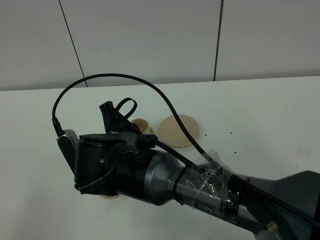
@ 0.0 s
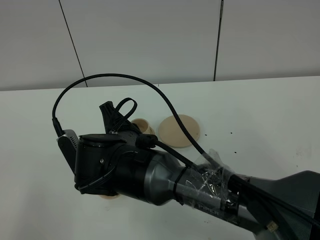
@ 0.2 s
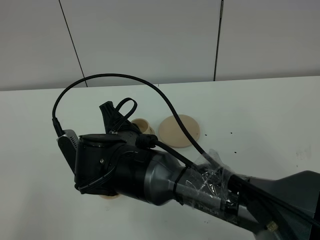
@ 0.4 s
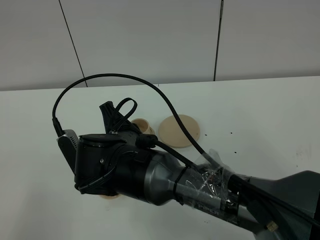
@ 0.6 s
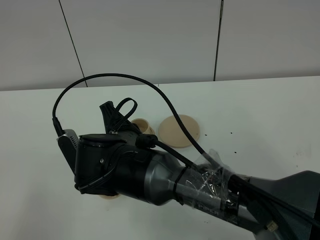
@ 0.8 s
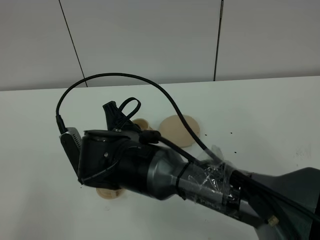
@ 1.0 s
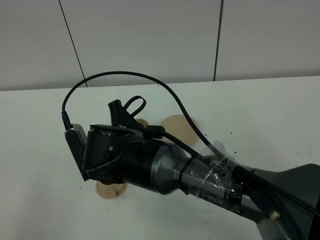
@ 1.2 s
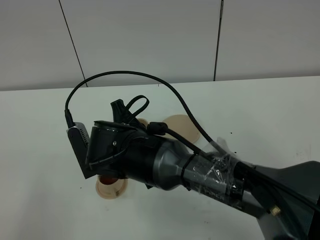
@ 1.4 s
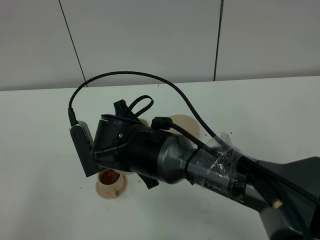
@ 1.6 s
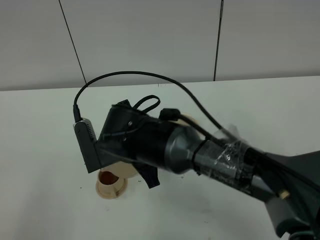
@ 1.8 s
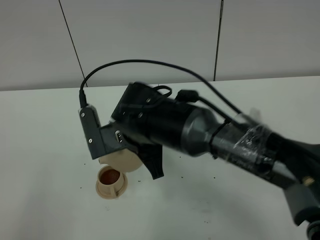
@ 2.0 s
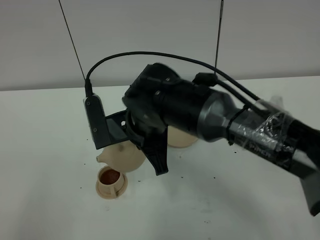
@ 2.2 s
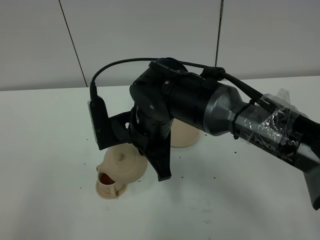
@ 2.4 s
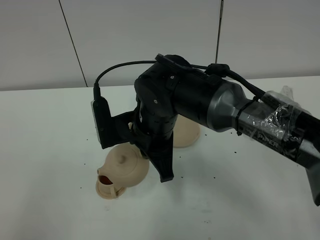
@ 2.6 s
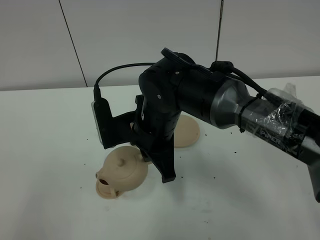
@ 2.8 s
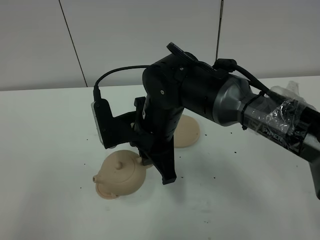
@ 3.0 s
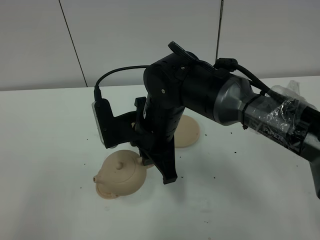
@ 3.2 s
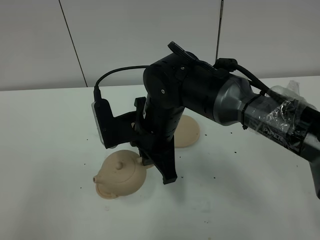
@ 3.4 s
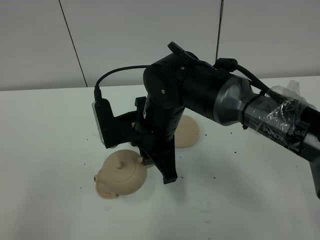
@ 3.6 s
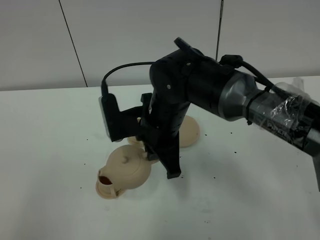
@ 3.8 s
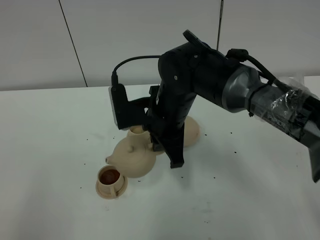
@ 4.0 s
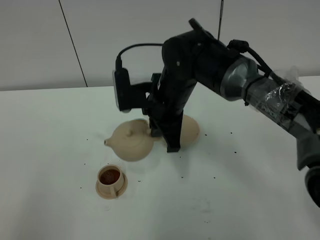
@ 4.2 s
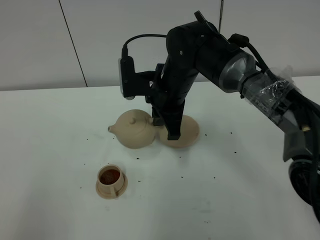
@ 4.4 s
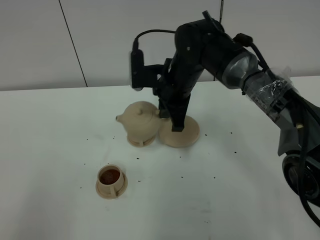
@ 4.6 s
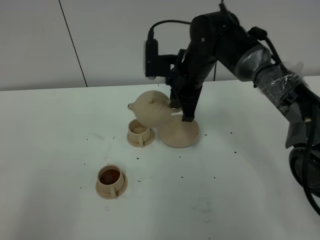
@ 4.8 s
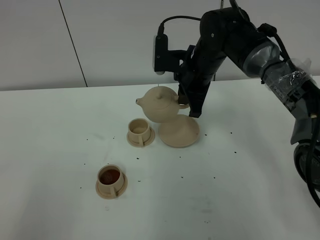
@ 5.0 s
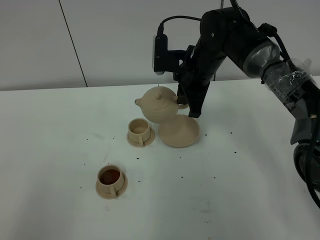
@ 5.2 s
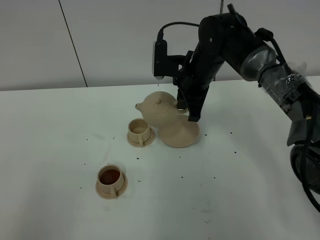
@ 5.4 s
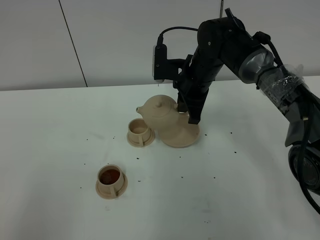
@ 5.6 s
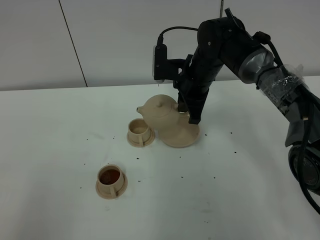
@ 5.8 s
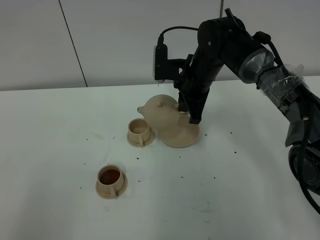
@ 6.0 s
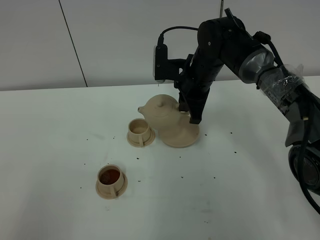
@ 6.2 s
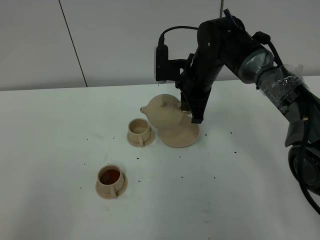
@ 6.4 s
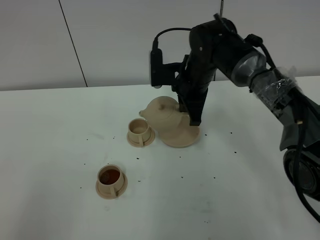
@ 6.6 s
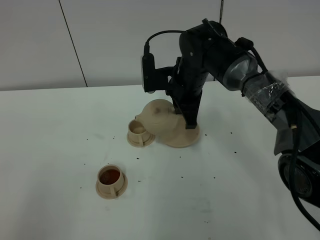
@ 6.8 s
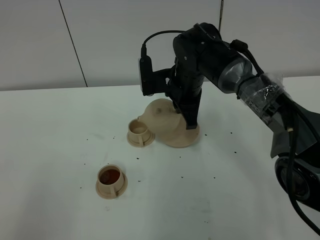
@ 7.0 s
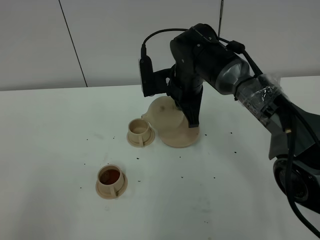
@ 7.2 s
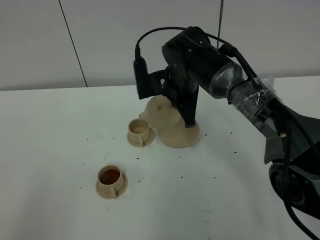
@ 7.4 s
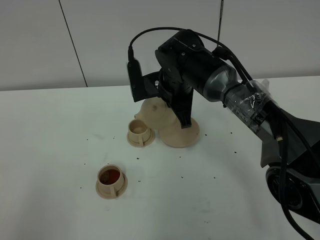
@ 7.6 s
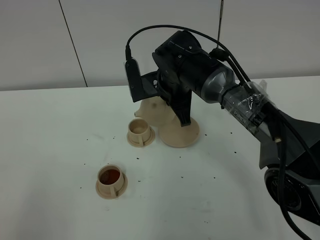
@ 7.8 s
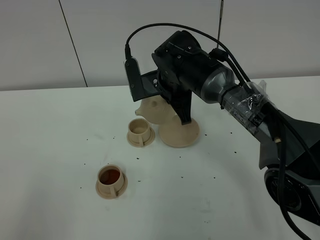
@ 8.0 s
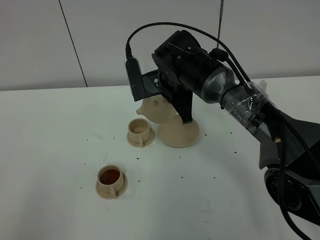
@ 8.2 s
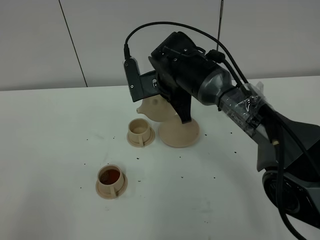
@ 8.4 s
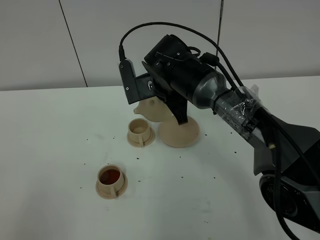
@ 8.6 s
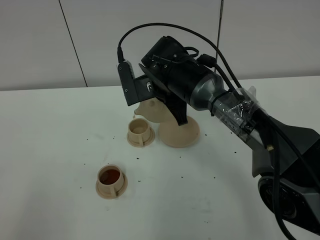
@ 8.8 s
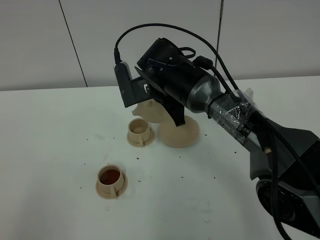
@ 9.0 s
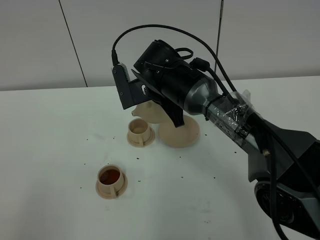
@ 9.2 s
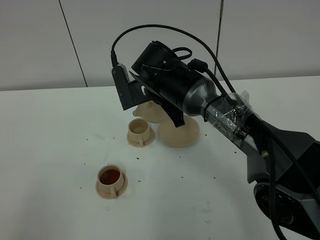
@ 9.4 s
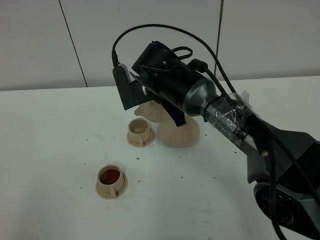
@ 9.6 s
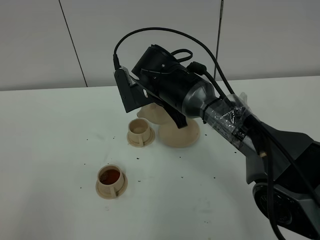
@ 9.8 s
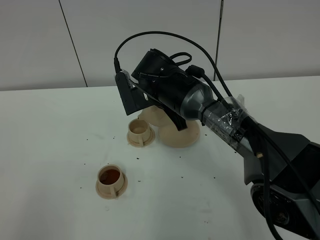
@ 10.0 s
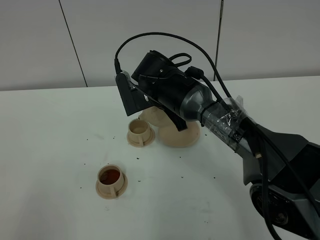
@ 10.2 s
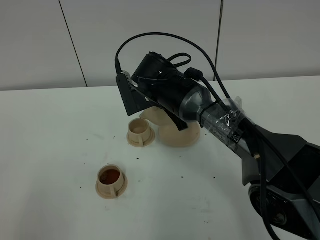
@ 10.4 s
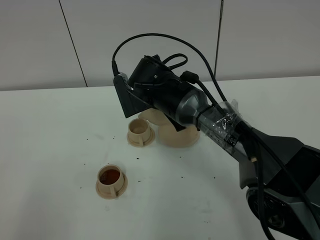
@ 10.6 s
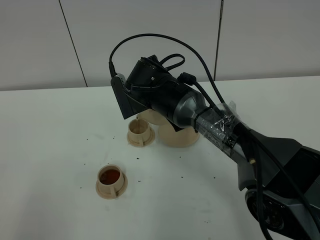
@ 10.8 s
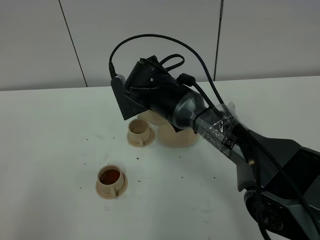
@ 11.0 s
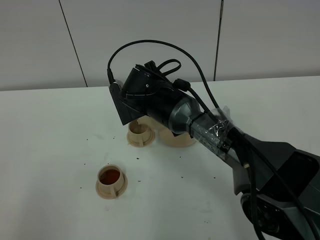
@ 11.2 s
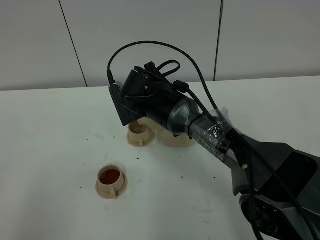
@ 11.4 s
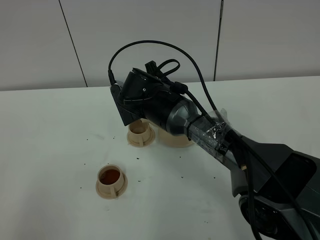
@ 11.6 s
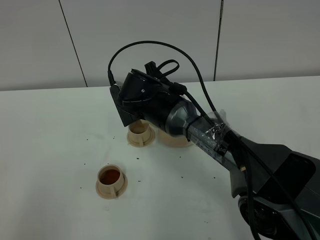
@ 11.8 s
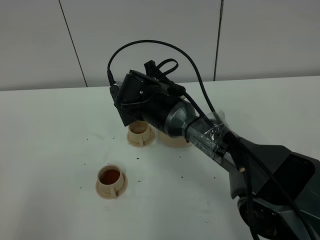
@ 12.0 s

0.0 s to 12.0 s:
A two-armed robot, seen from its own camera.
Task of the whole recording: grasp the brown teapot and pour the tea into the two brown teacups one by one, put the brown teapot back in its original place.
0.0 to 1.6 s: The grippers make only small movements.
1.6 to 3.0 s: The right gripper shifts by approximately 5 cm.
3.0 to 4.4 s: The right gripper shifts about 10 cm forward.
4.4 to 6.0 s: The right gripper shifts some 5 cm forward and to the right.
6.0 to 7.6 s: The right gripper changes place by some 5 cm.
7.6 to 10.4 s: The grippers make only small movements.
10.4 to 12.0 s: There are only small adjustments of the grippers.

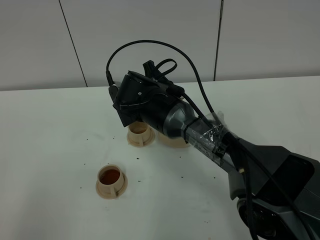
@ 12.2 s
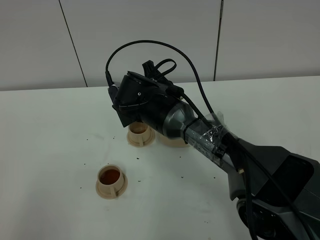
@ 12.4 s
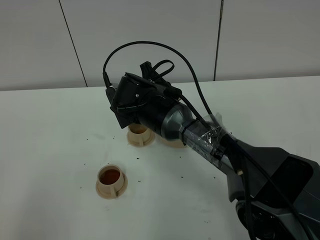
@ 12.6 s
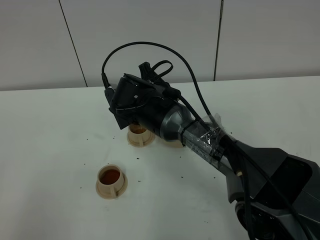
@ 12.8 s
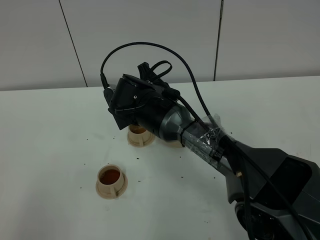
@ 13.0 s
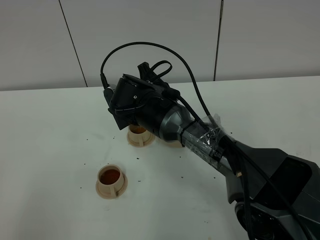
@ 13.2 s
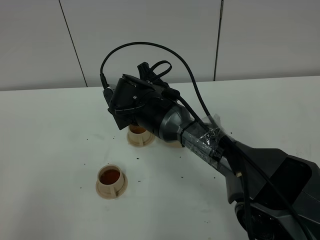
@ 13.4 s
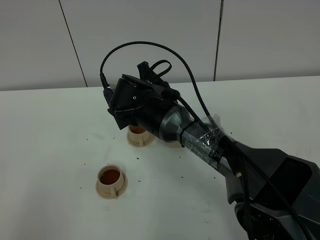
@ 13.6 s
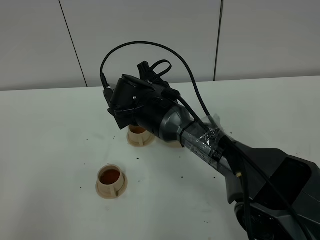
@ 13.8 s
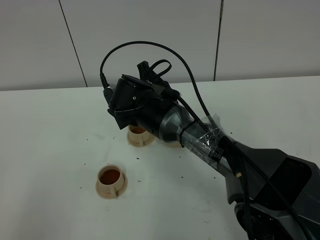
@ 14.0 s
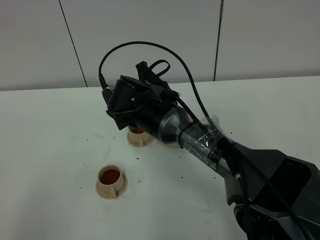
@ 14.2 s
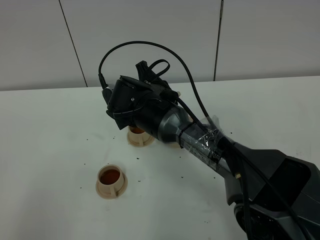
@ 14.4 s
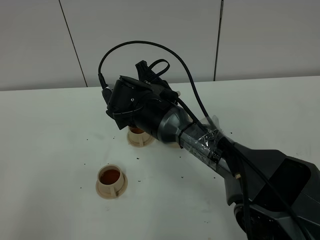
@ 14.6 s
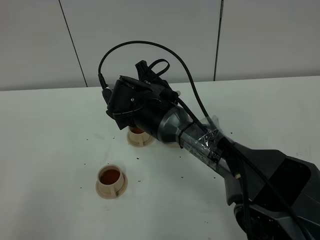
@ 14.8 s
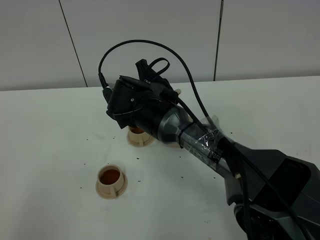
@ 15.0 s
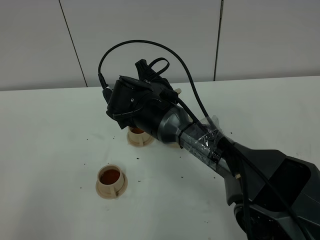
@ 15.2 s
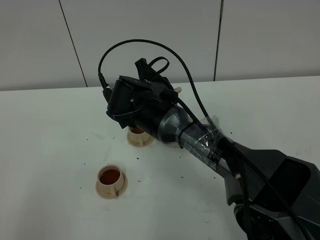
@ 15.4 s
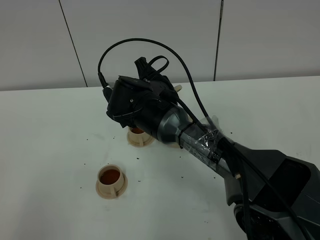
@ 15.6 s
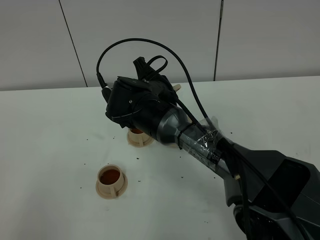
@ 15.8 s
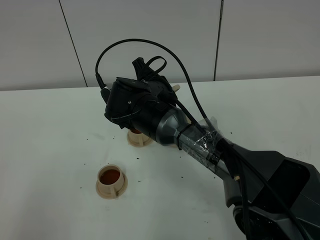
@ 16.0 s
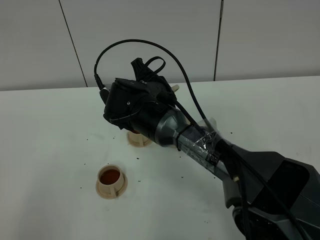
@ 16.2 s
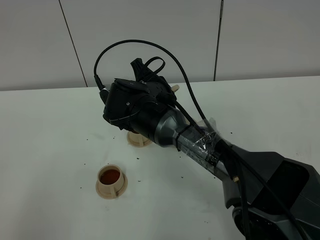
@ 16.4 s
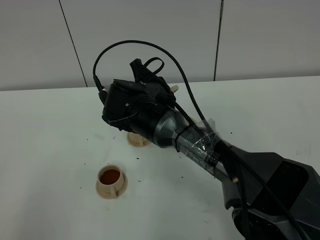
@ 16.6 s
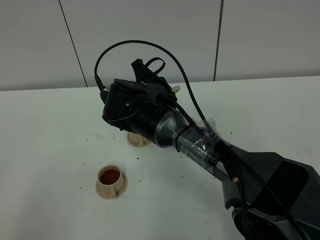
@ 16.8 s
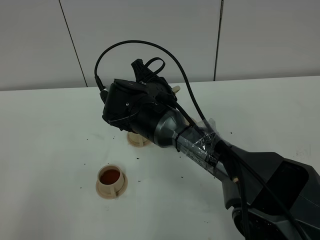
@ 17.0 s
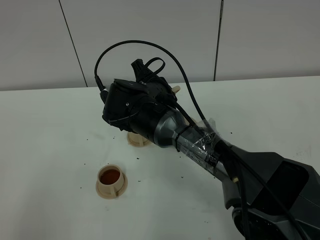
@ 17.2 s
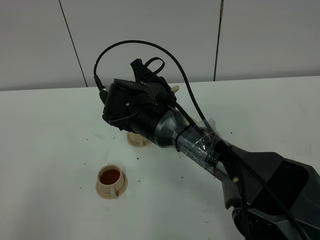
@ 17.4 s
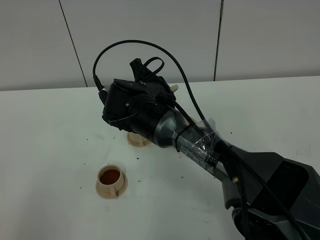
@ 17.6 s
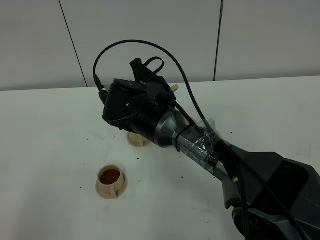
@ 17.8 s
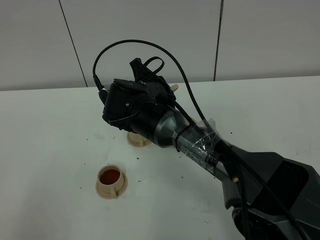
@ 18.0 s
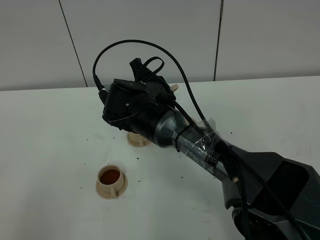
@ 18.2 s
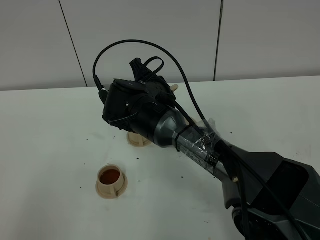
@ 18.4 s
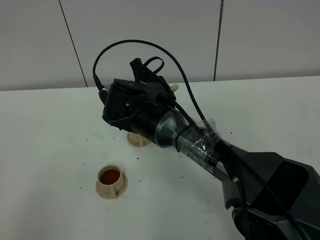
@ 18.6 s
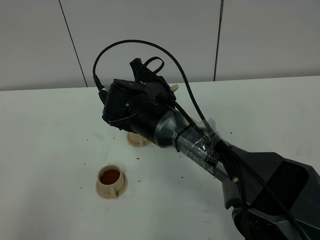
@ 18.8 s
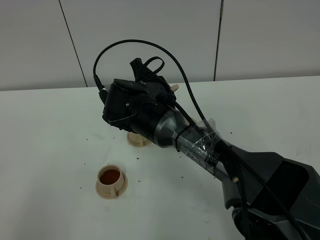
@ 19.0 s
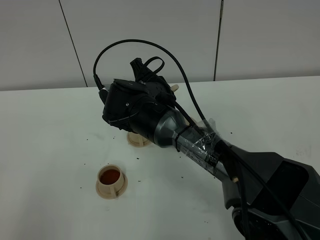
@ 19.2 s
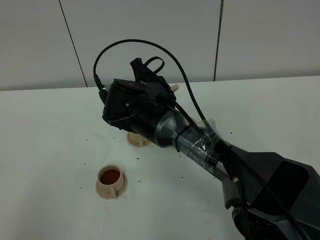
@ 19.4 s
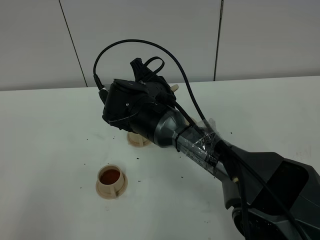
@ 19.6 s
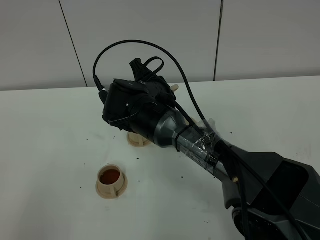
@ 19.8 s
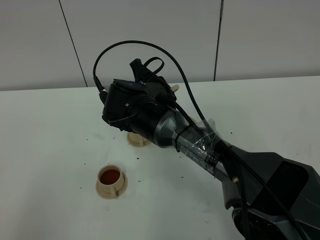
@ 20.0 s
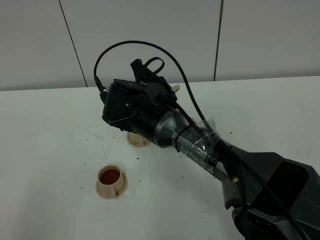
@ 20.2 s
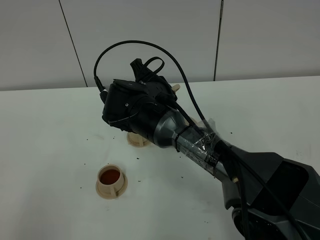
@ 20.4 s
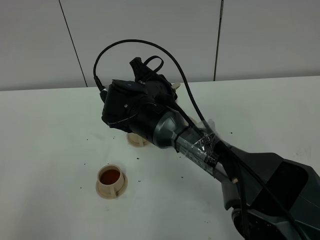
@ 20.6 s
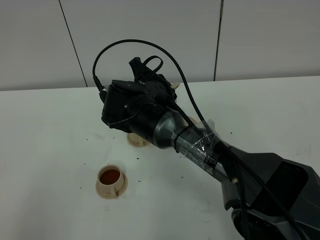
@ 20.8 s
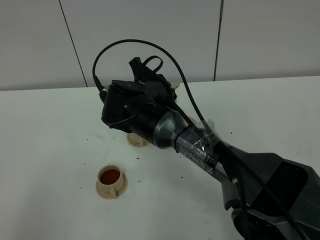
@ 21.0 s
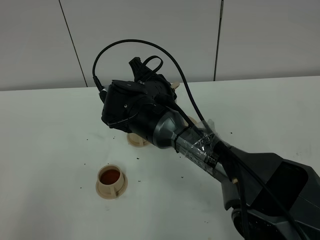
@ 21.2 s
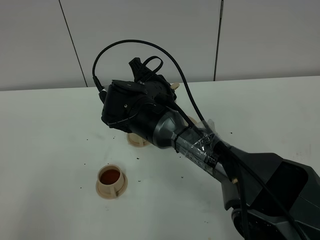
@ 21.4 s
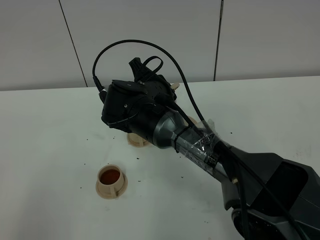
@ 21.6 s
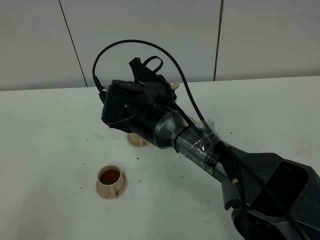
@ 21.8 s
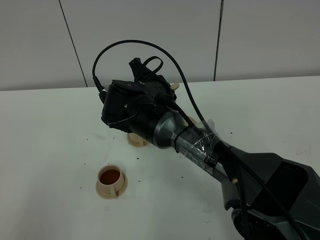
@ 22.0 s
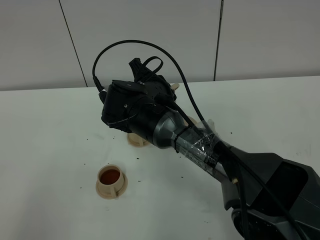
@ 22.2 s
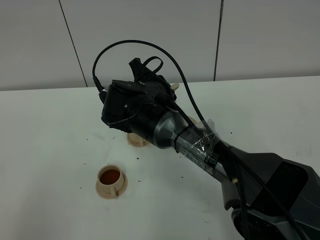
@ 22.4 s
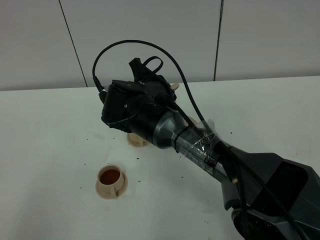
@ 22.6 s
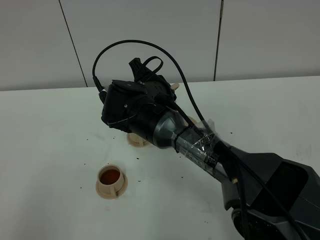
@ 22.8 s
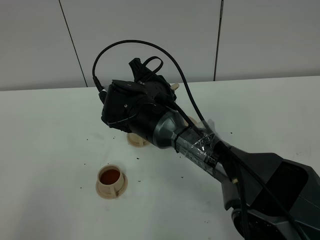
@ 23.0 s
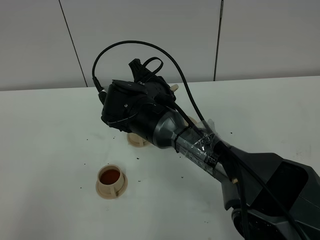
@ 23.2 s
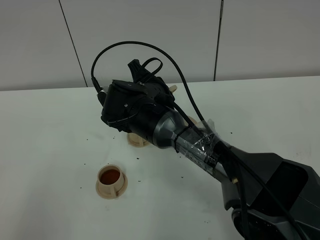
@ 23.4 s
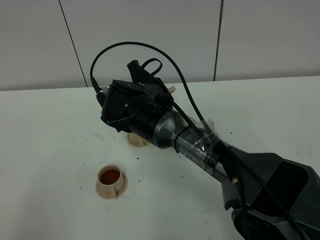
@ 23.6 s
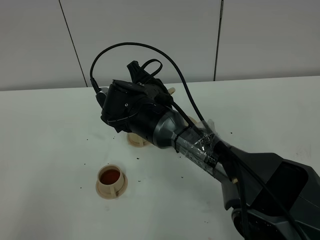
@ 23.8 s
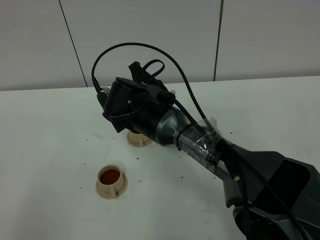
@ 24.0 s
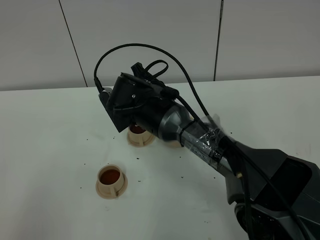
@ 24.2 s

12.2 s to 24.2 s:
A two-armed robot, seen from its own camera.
Task of the whole recording: grasp the brown teapot and pour the tea into the two brown teacups one by one, put the brown teapot back in its original place.
Step, 12.2 to 23.8 s: Pour tea into the teacup with the right gripper.
12.2 to 13.8 s: The two grippers keep their place.
13.8 to 15.2 s: The two grippers keep their place.
15.2 to 19.8 s: Neither gripper changes place.
19.8 to 22.6 s: Neither gripper changes place.
22.6 to 24.2 s: The grippers stay close to where they were, moving slightly.
